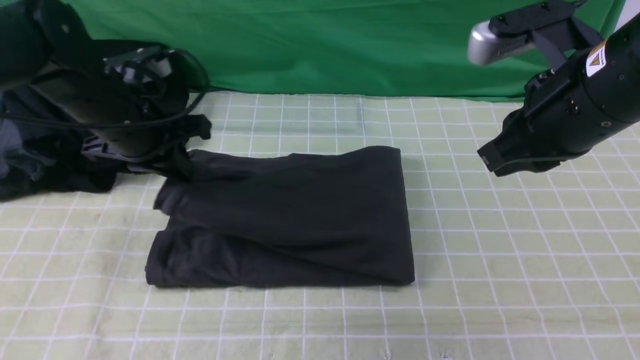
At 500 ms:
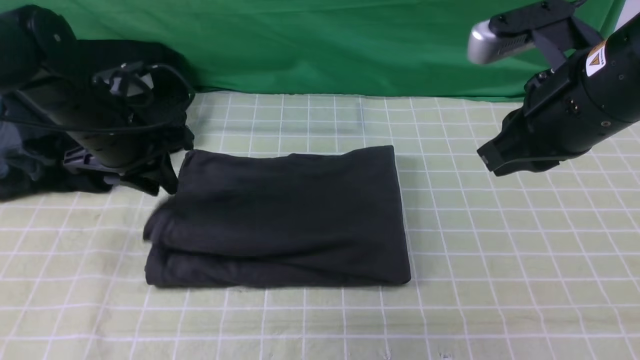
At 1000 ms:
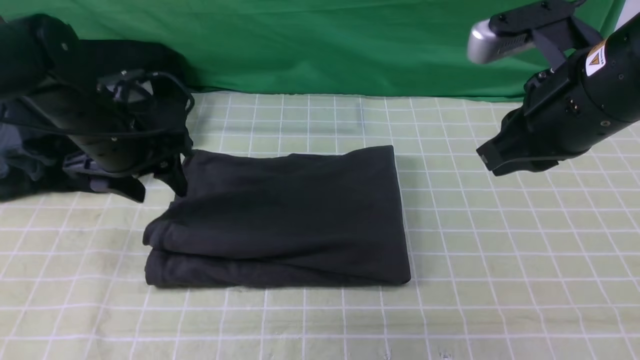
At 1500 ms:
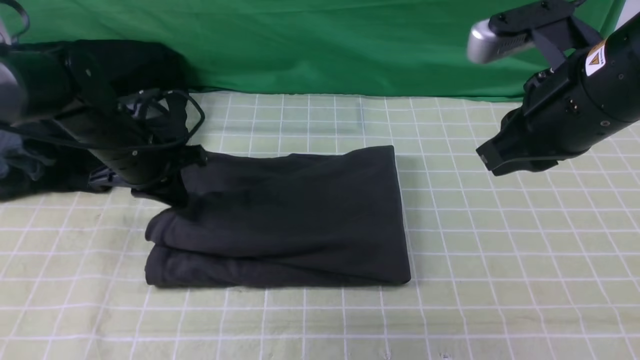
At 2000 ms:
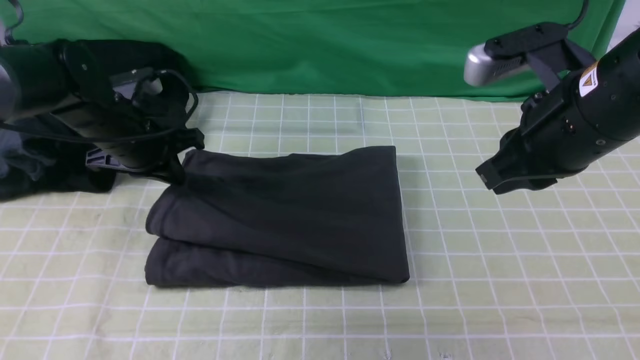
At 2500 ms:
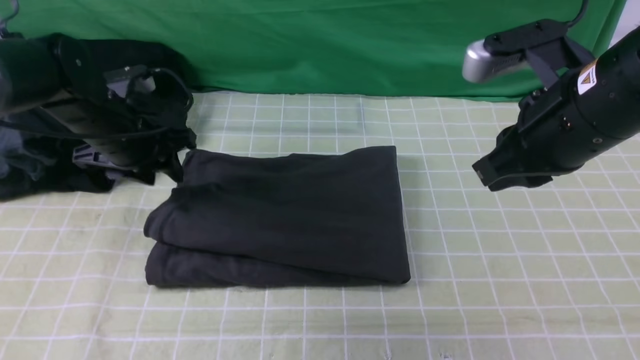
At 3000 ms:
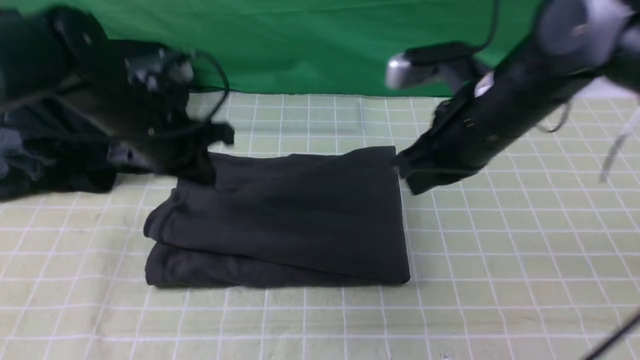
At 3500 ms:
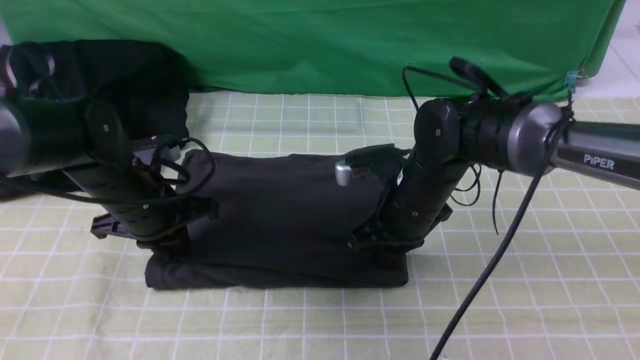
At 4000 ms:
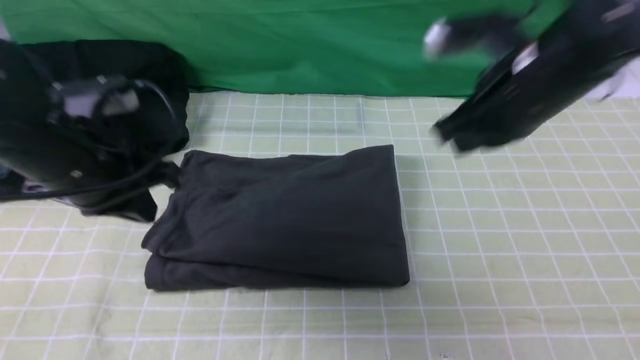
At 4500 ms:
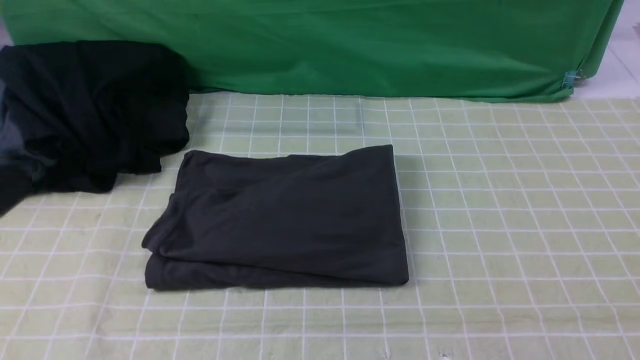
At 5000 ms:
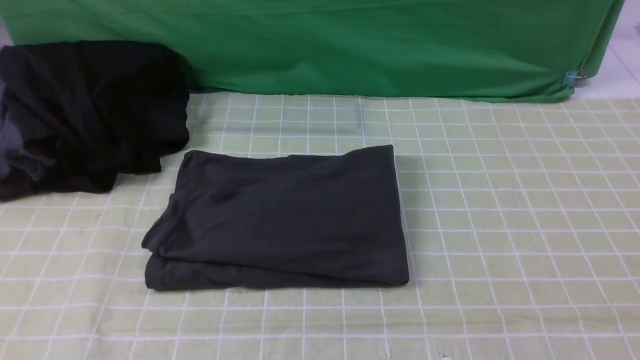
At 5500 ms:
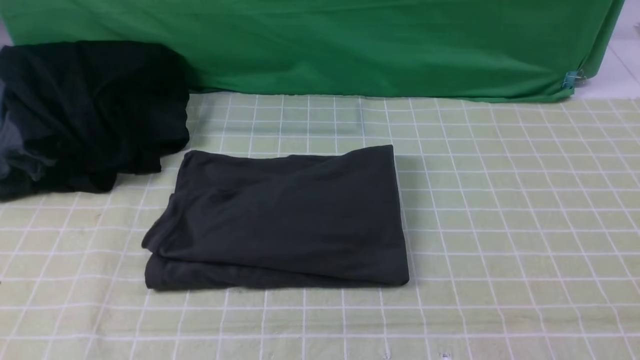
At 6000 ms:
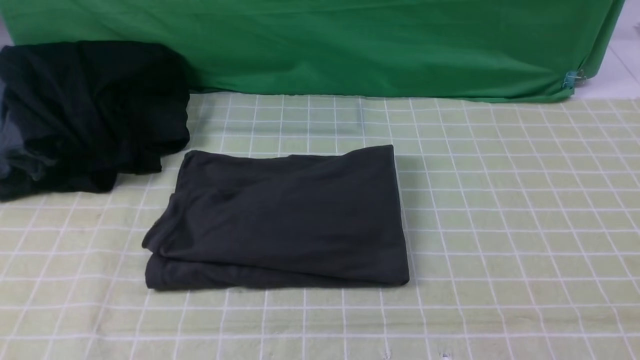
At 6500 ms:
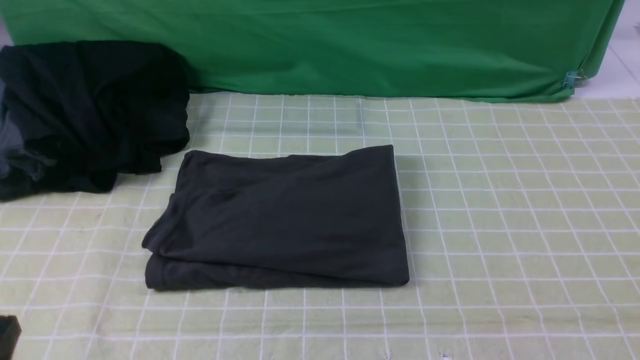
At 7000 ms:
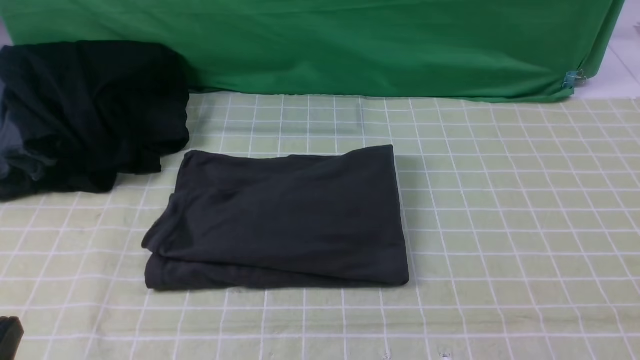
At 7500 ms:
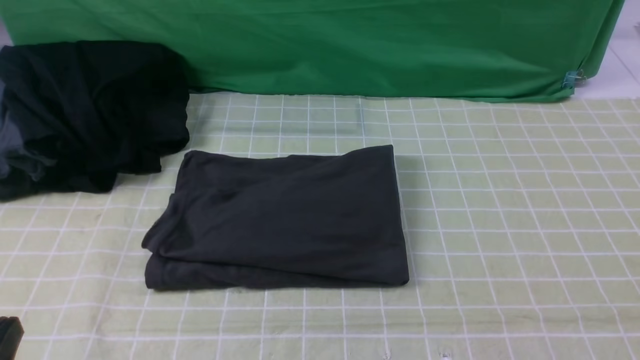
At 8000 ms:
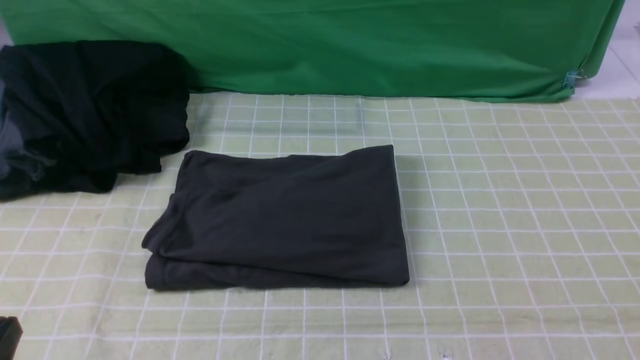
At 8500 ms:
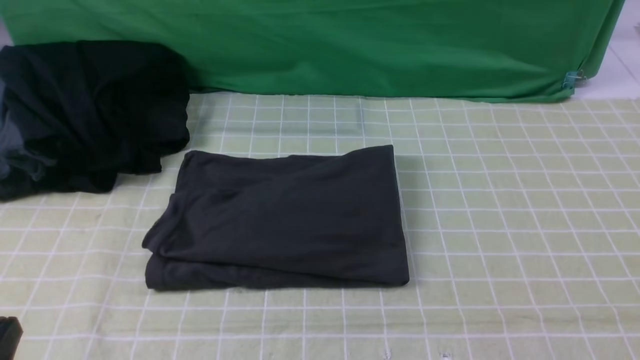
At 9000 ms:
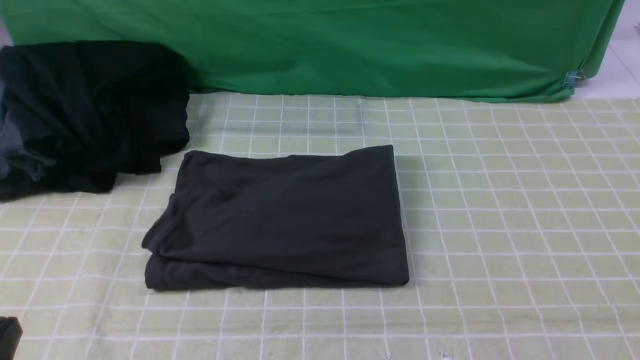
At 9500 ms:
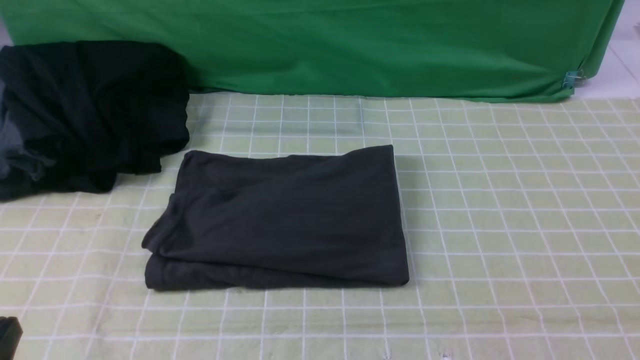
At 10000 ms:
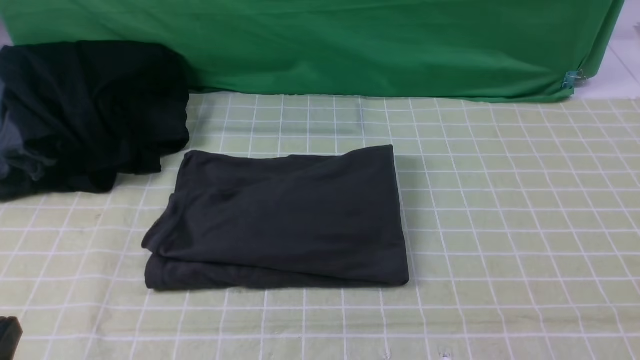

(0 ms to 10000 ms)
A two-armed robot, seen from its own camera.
0 ms - 2000 ms: The left gripper changes place by some 5 cm, and opens and closes again.
2000 ms - 4000 ms: The left gripper goes some 15 cm backward and upward, and opens, then closes once more. The right gripper travels downward and back again, approximately 15 cm each way.
4000 ms - 6000 ms: The left gripper heads backward, covering approximately 25 cm. The right gripper travels backward and to the right by some 30 cm.

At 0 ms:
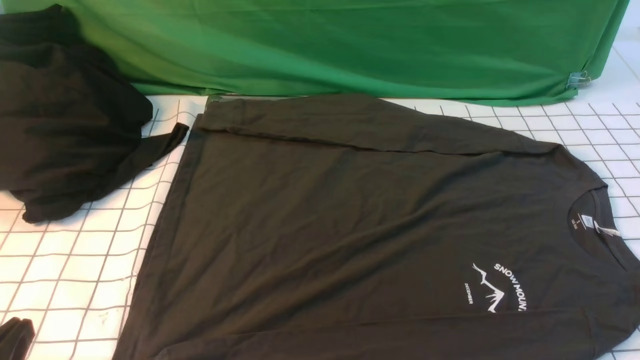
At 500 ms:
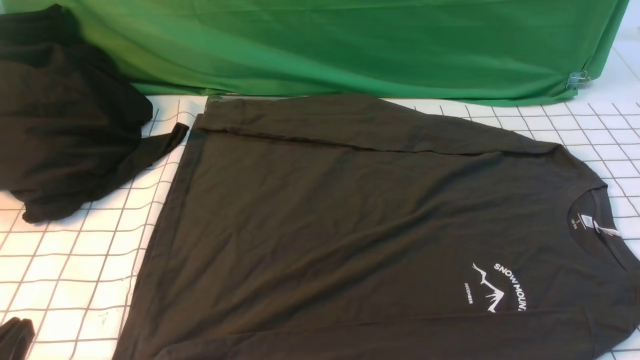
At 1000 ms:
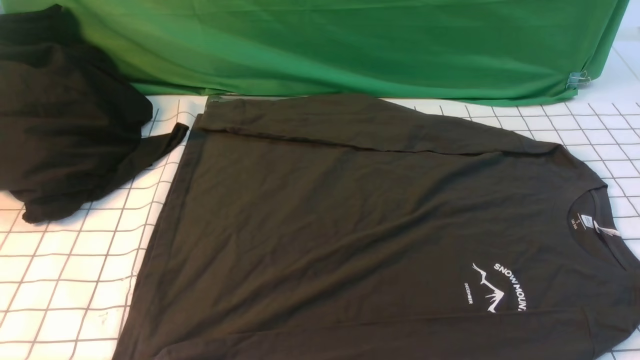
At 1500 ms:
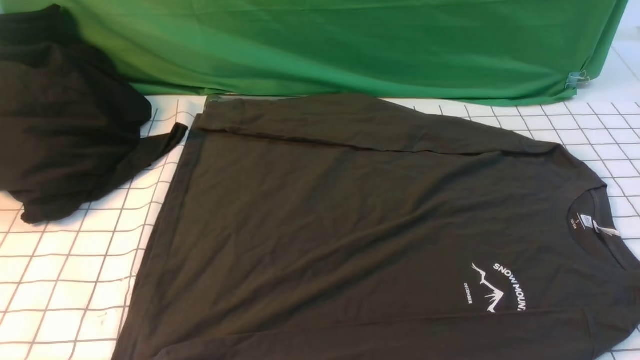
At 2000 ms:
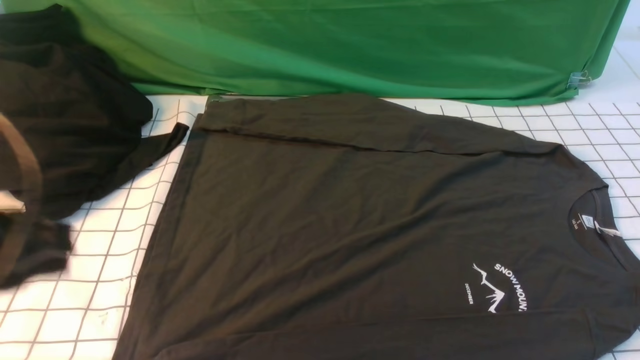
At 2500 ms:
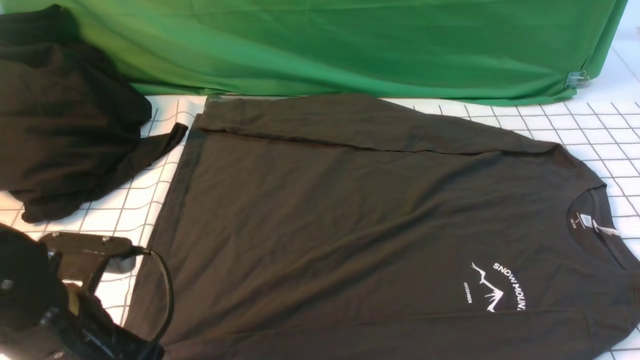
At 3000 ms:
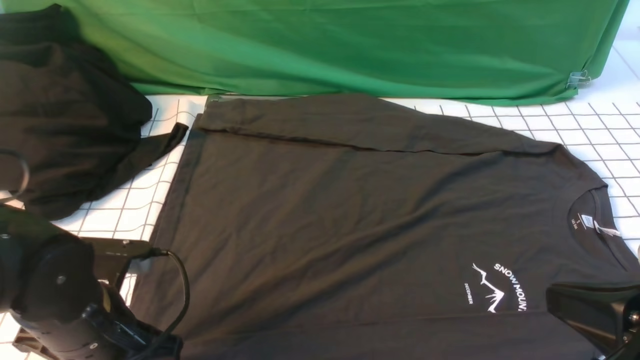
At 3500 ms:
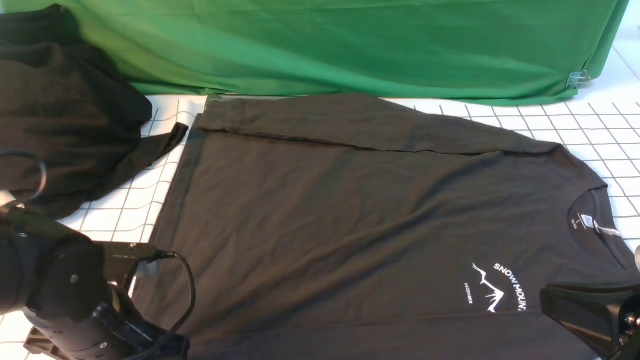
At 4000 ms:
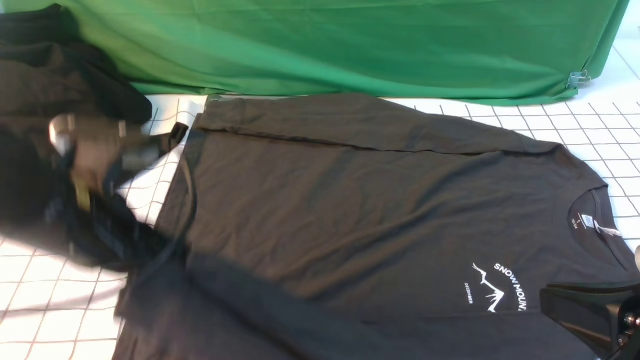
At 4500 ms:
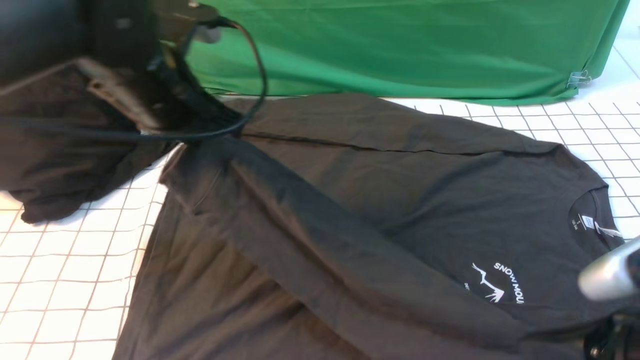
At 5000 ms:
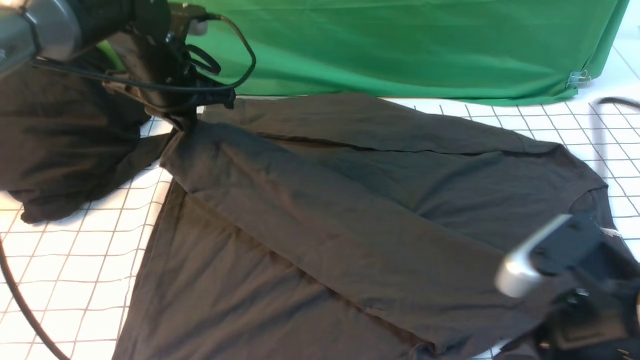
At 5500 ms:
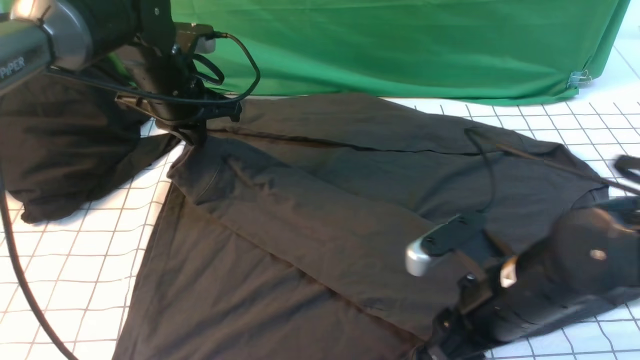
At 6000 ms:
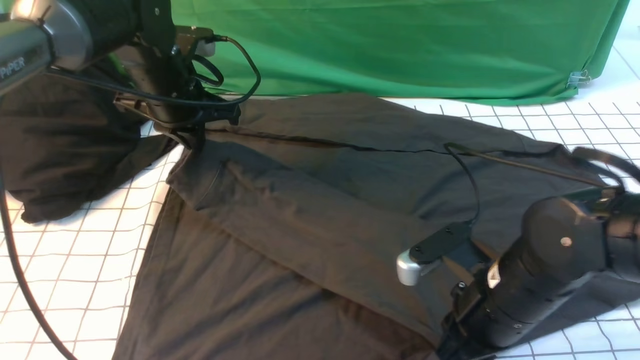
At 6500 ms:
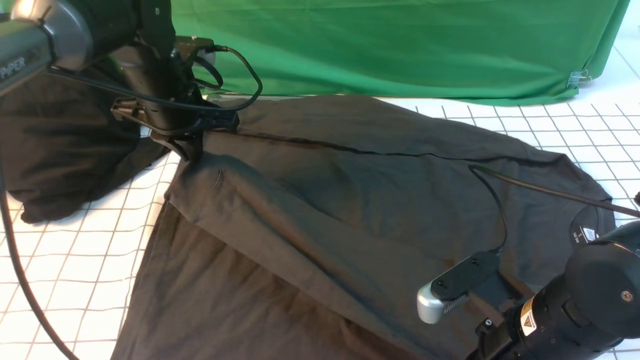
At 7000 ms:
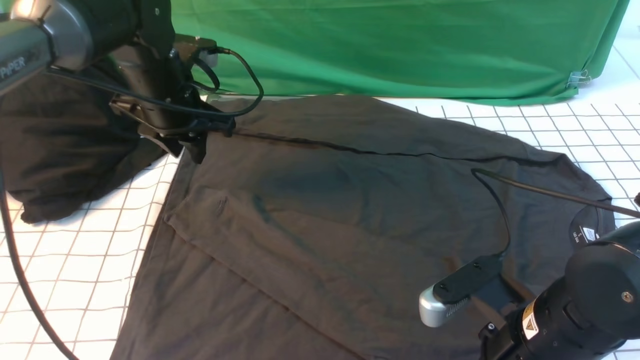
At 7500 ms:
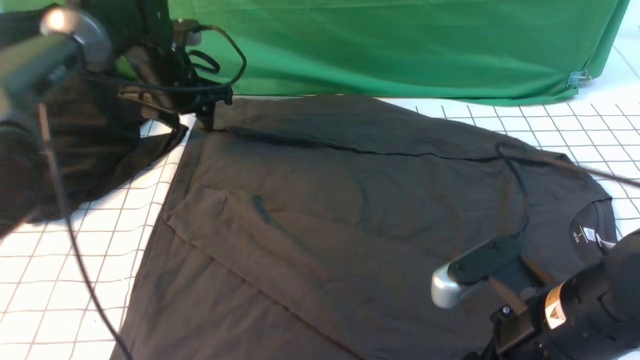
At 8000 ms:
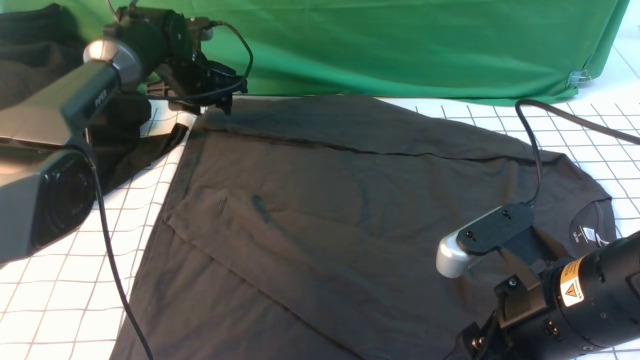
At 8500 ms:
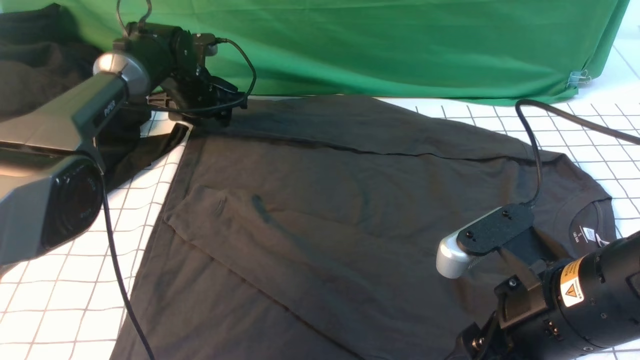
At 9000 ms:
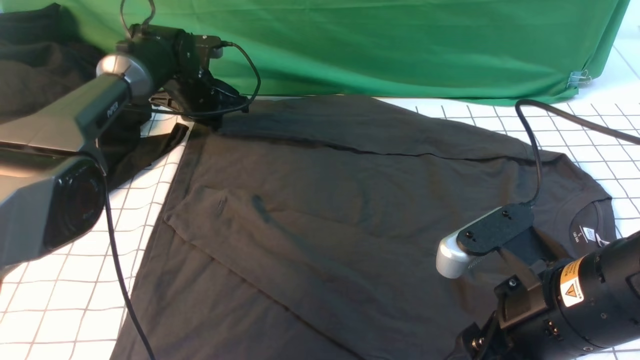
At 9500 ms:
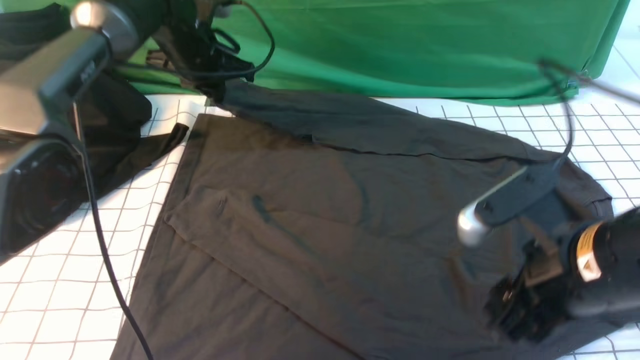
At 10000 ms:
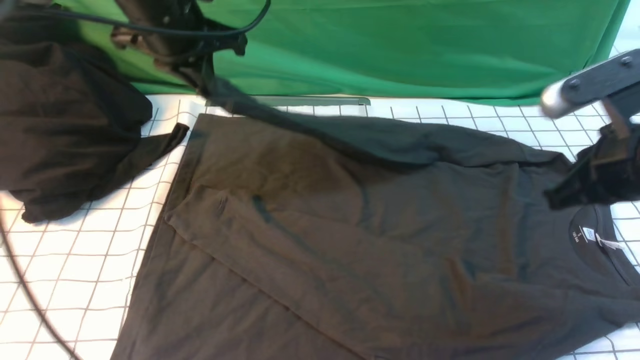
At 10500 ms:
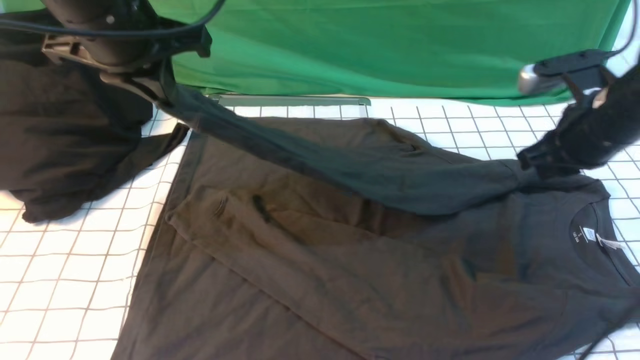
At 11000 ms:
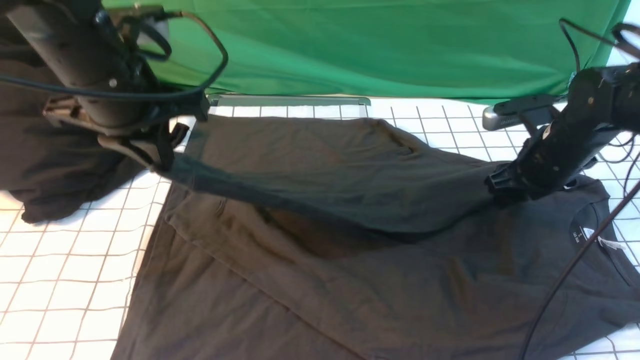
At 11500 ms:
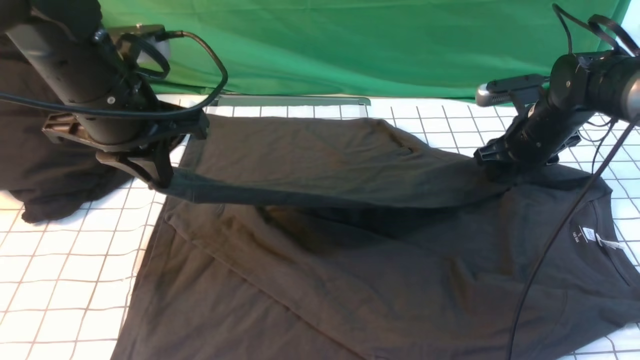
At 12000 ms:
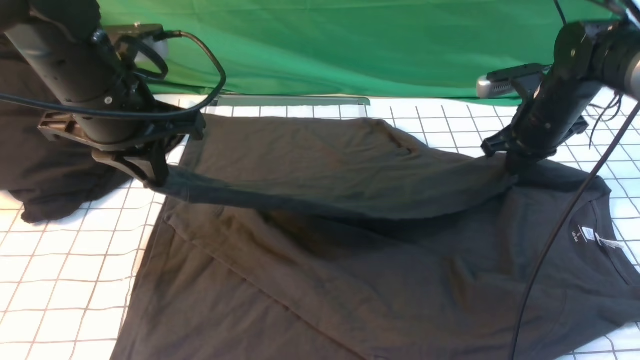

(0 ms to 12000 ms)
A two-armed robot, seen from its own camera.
Step, 0 ms - 3500 ms: use the left arm to clamp the cuff closest to it.
Step, 4000 ms - 6500 ms: use the left arm to drag and place the cuff at the centered position on the left edge of the fabric.
Step, 7500 ms - 9000 ms: use the left arm to clamp the cuff farthest from it.
0 ms - 2000 ms: The left gripper travels upward and forward by some 15 cm.
2000 ms - 4000 ms: The right gripper shifts roughly 10 cm to the left, upward and forward. Meanwhile the left gripper travels forward and to the right by roughly 10 cm, reaches some 15 cm downward, then returns, and opens, then closes once more.
4000 ms - 6000 ms: The left gripper moves forward, roughly 20 cm. The right gripper moves forward, downward and to the left, about 15 cm, and opens, then closes once more.
6000 ms - 8000 ms: The right gripper is displaced upward by about 5 cm, and opens its fingers. The left gripper moves forward and downward, roughly 15 cm, and opens.
8000 ms - 10000 ms: The right gripper goes about 10 cm forward and to the right, and closes up. The left gripper travels upward and backward by roughly 20 cm, and closes up.
10000 ms - 12000 ms: The right gripper is displaced forward and downward by roughly 20 cm, and opens and closes again, while the left gripper is displaced backward by some 10 cm.
